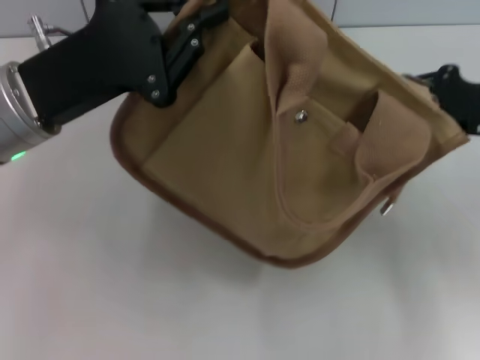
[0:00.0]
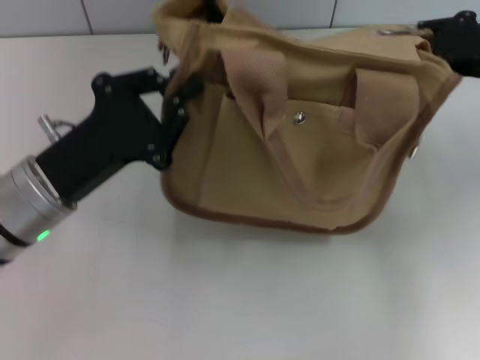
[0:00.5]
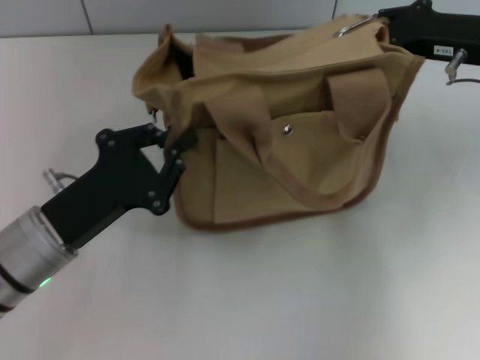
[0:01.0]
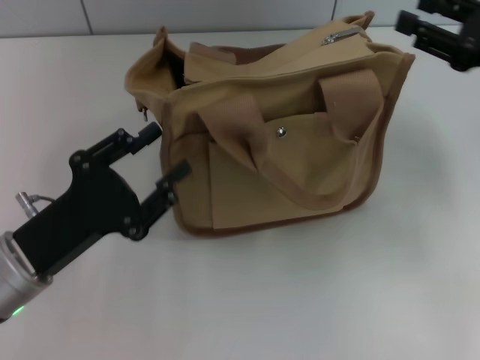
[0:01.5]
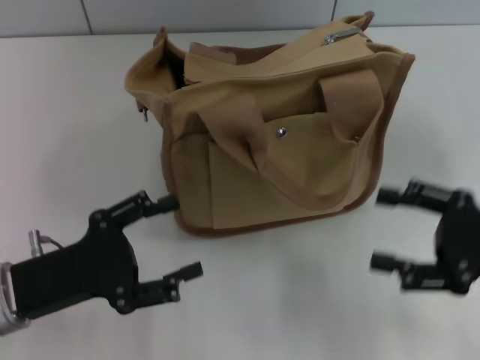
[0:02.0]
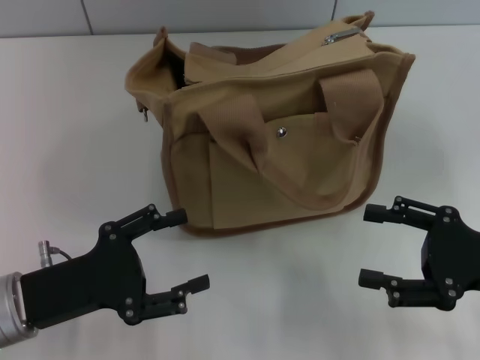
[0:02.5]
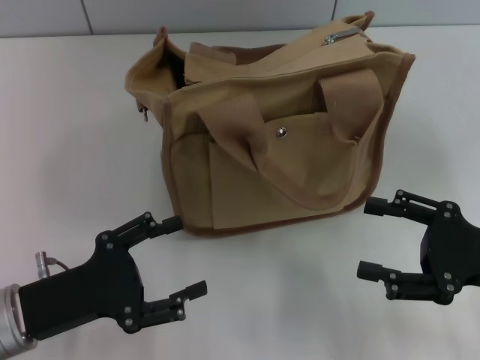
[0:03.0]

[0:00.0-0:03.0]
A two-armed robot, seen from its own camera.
0:00.0 to 0:01.5: The left gripper is displaced downward and backward by some 15 cm.
0:01.5 to 0:03.0: The right gripper shifts roughly 15 cm backward and downward, and opens up. Meanwhile the left gripper opens up.

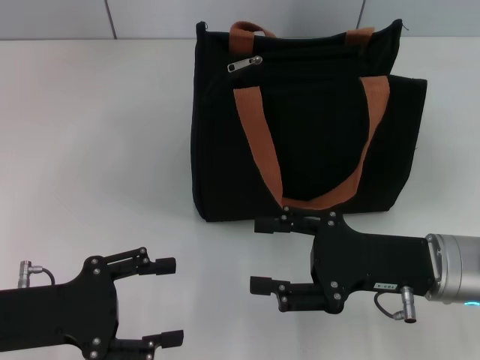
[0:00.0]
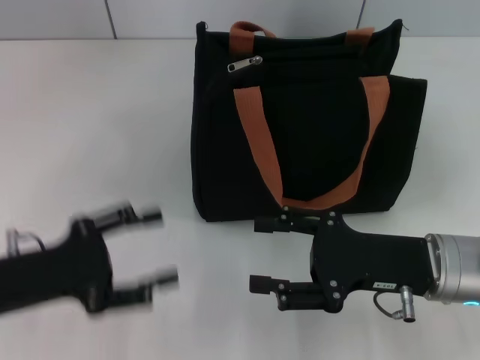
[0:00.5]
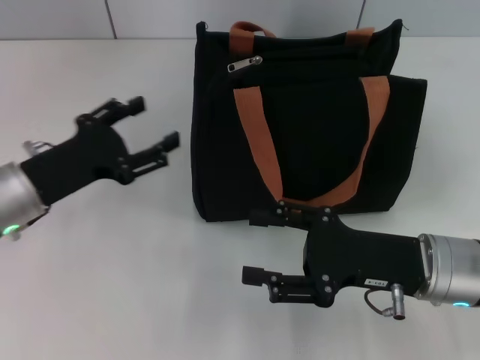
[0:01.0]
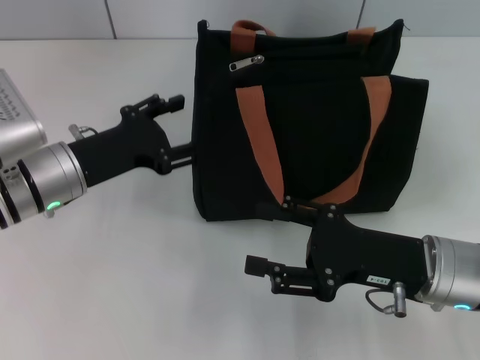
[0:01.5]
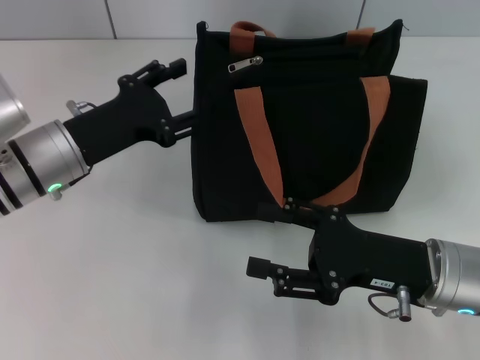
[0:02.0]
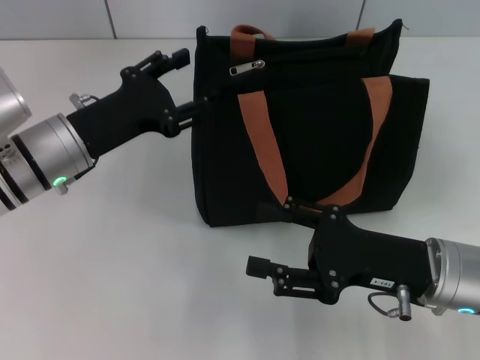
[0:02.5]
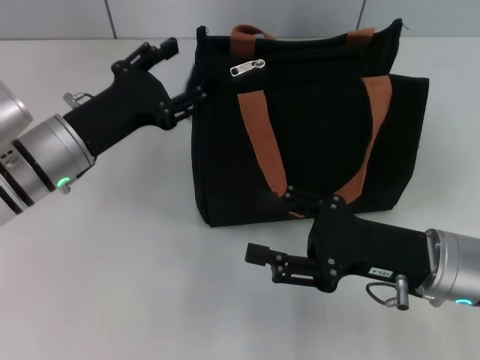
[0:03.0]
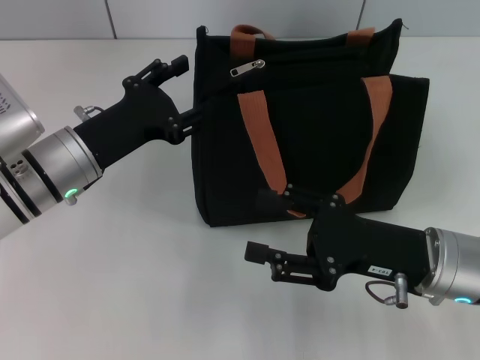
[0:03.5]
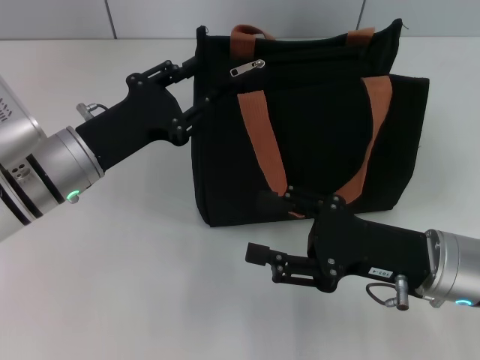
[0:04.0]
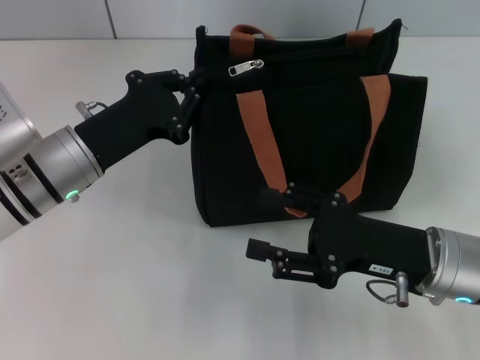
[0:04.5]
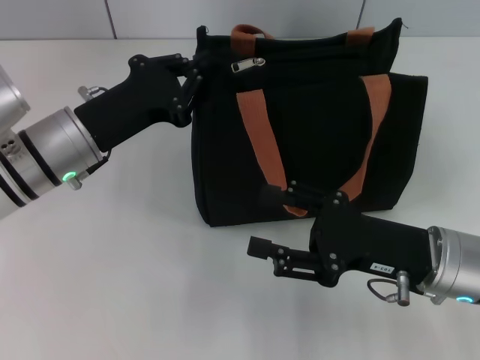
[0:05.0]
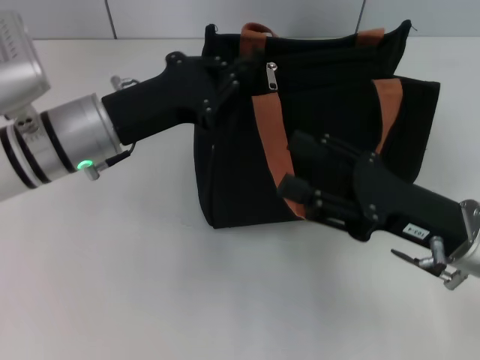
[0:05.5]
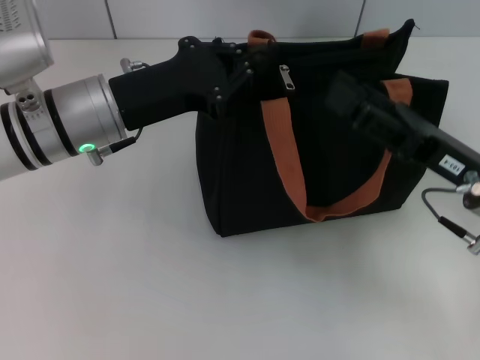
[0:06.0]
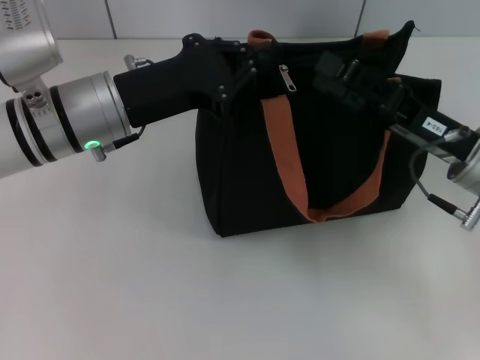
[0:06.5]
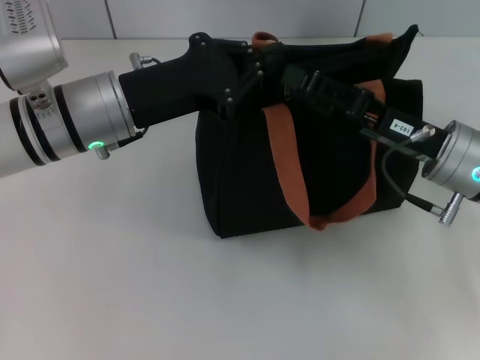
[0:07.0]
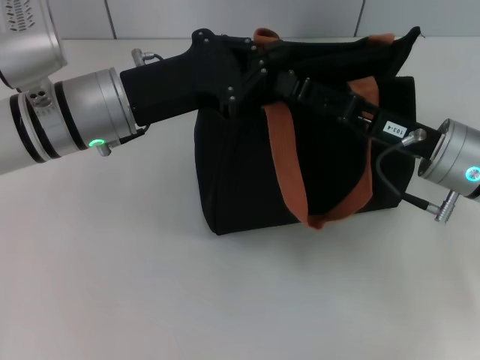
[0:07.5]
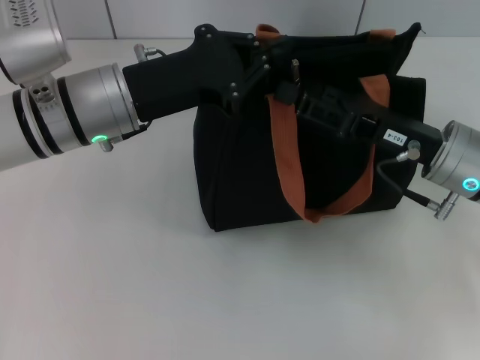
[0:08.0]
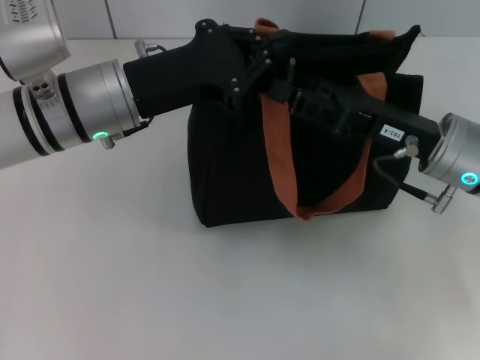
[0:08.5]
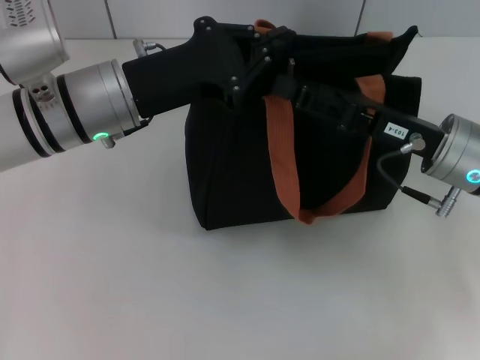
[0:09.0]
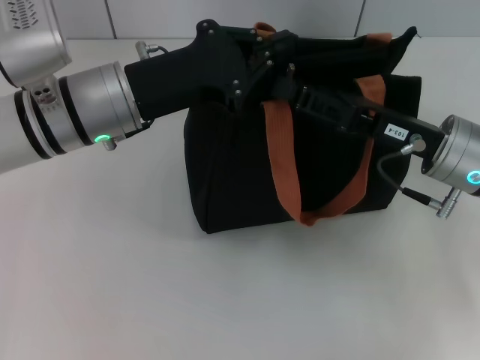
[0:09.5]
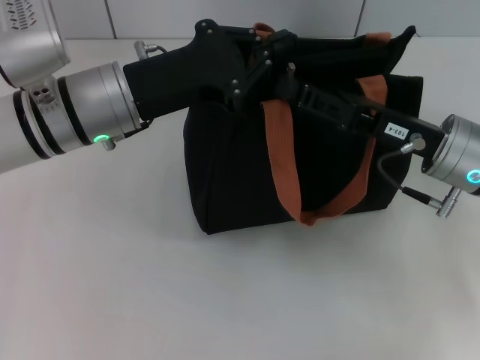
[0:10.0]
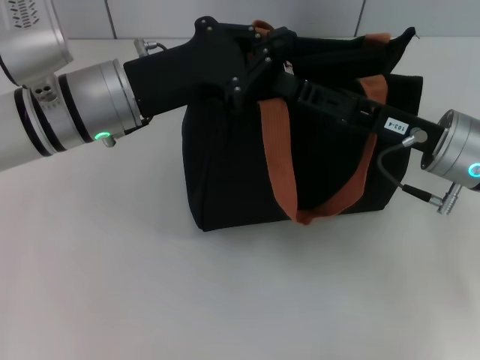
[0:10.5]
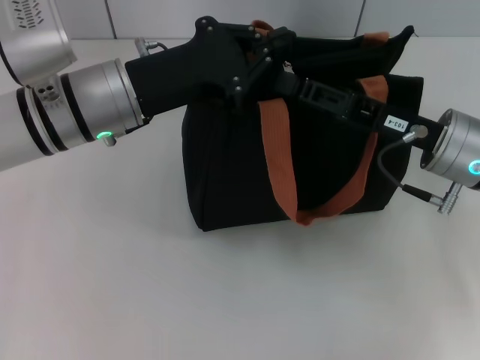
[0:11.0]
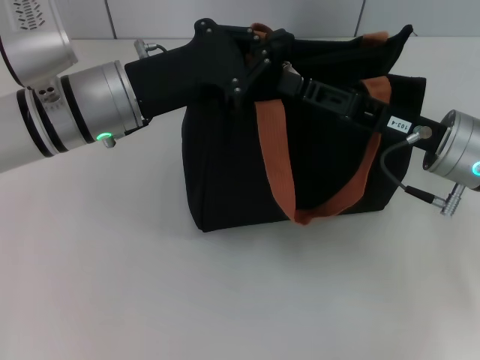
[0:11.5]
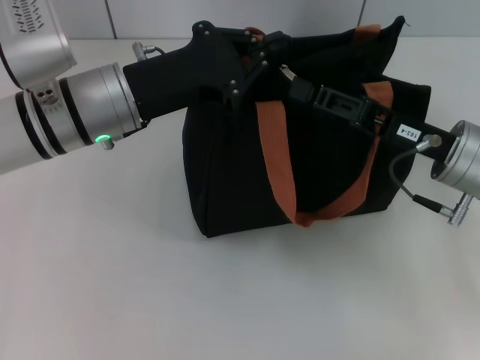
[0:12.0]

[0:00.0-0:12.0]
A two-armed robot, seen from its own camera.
0:00.0 to 0:02.0: The left gripper heads forward and to the right, covering roughly 15 cm.
0:02.0 to 0:04.0: The grippers make only small movements.
0:04.0 to 0:06.0: The left gripper moves upward, about 5 cm, and closes its fingers. The right gripper changes place by some 5 cm.
0:08.0 to 0:10.0: The grippers move only a little.
0:10.0 to 0:12.0: The right gripper closes.

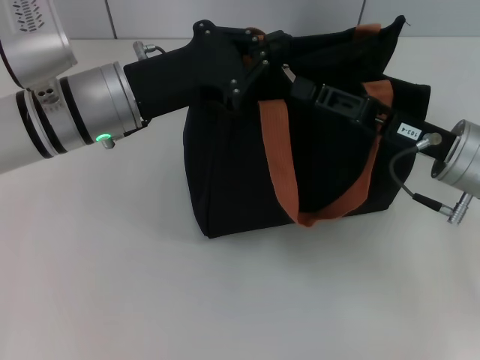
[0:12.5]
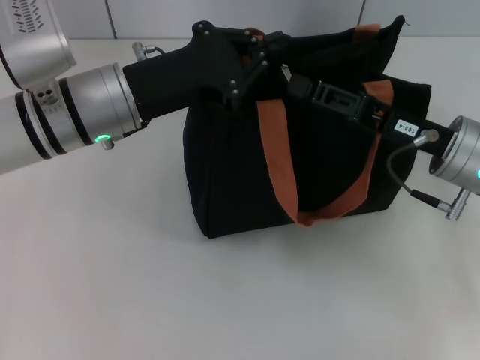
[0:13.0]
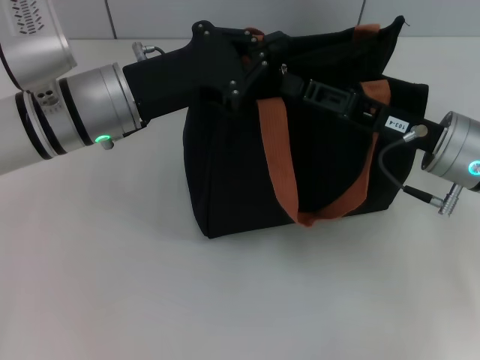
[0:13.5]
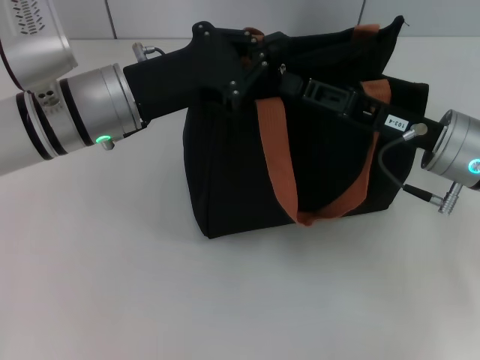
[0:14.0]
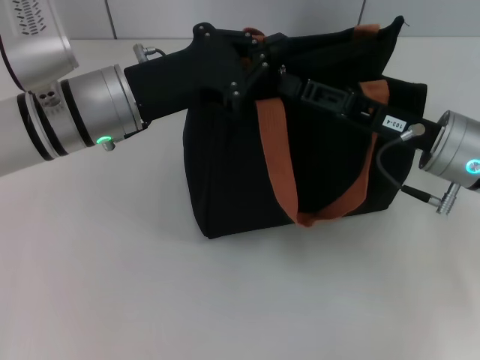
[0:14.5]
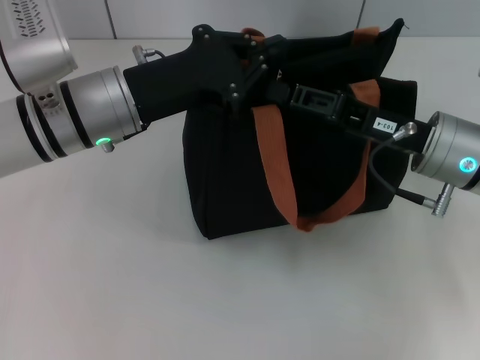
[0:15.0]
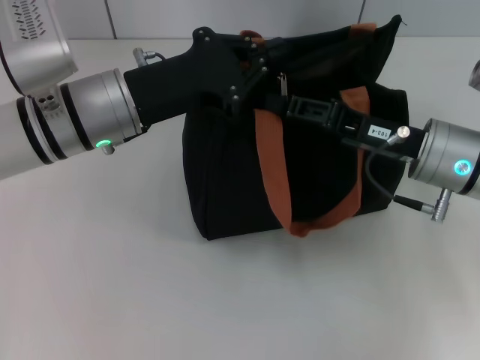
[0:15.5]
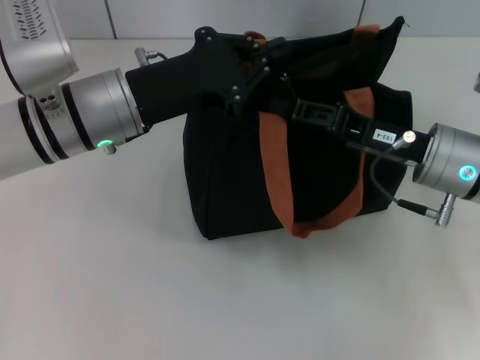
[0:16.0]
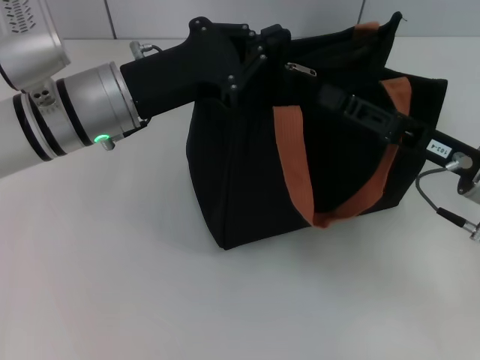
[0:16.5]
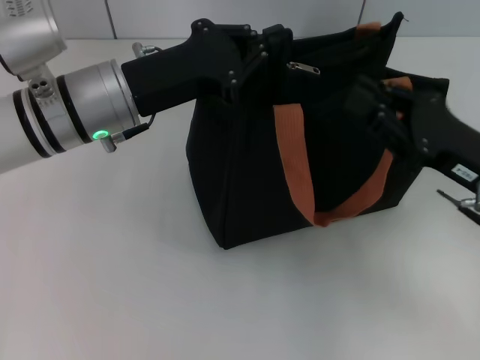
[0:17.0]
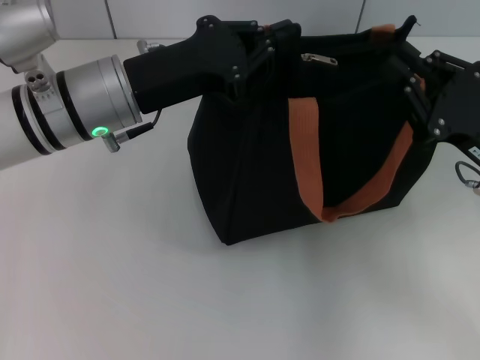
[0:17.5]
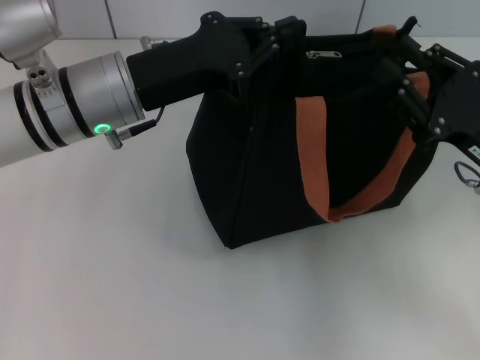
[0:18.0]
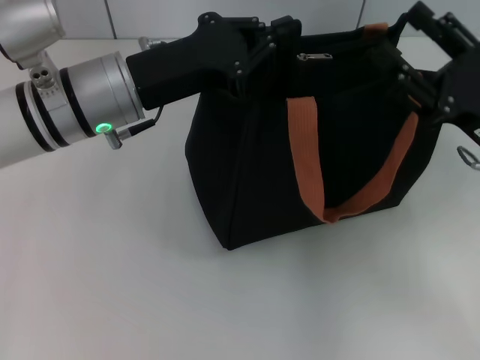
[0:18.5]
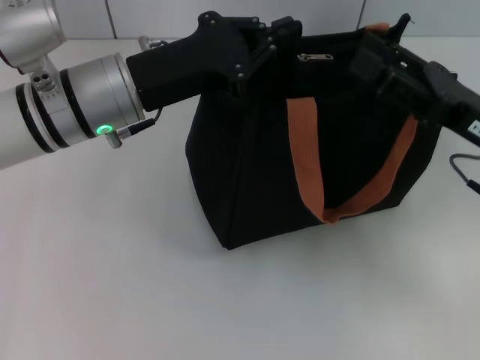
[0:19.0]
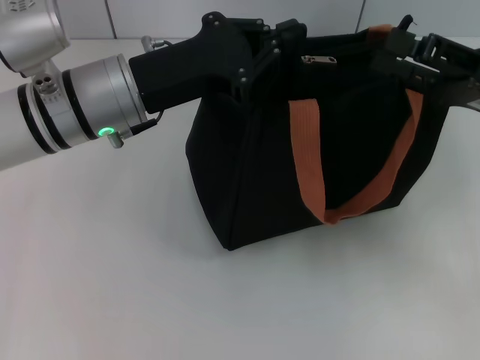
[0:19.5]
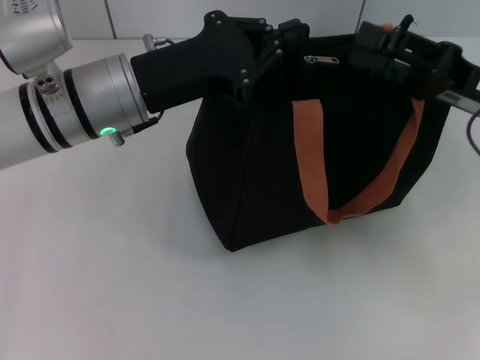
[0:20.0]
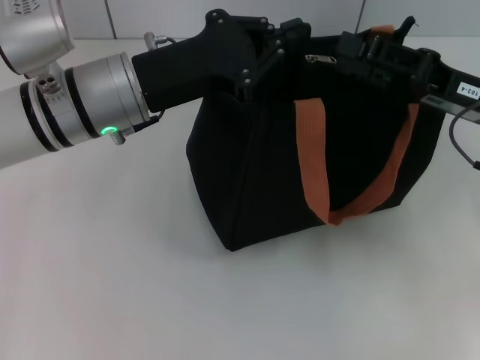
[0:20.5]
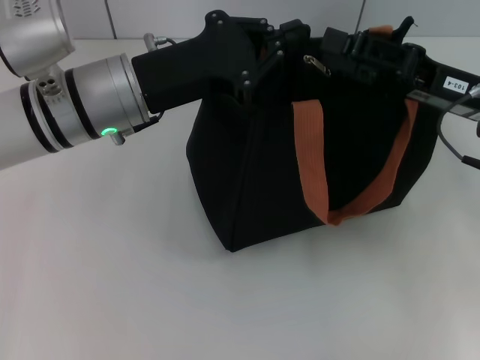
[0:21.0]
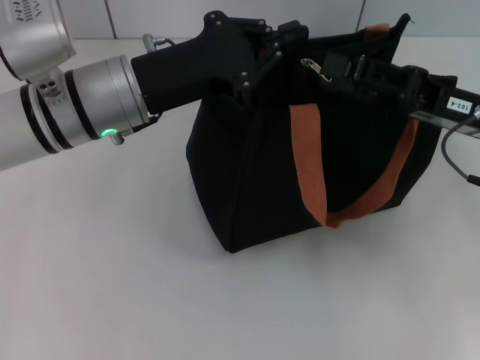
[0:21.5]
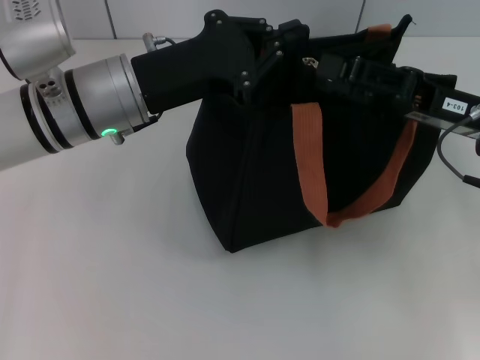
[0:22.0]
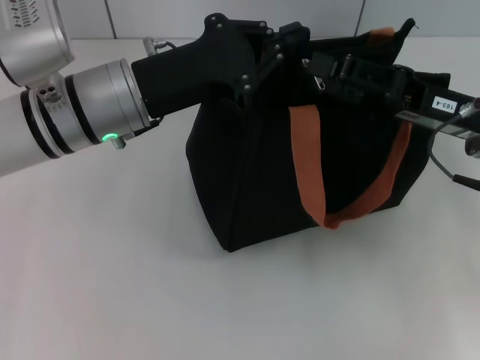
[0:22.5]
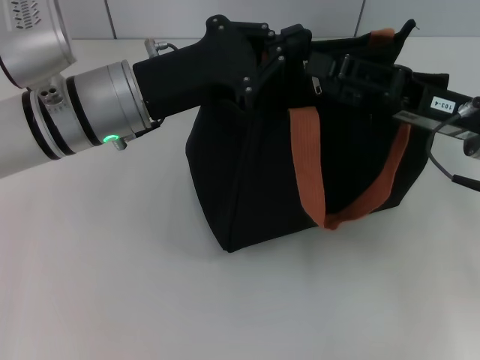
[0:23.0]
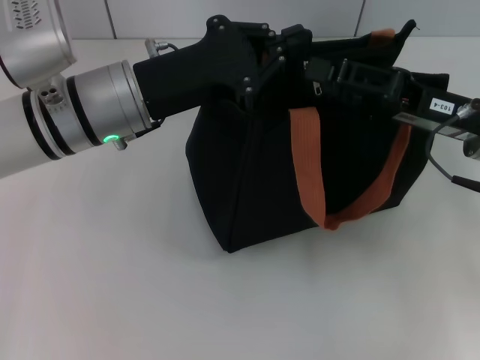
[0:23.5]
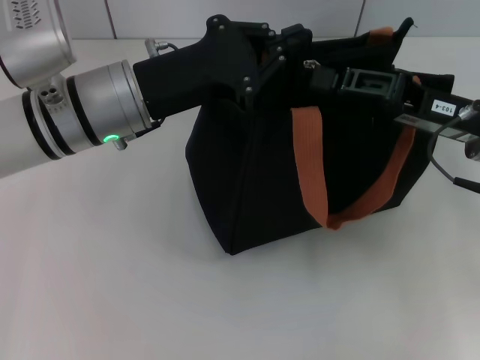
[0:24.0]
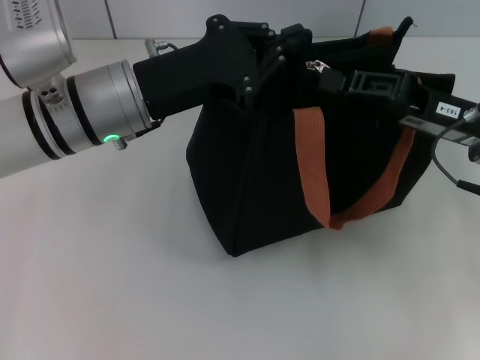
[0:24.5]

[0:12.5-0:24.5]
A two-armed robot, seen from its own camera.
0:12.5 to 0:14.5: Neither gripper changes place.
0:14.5 to 0:16.5: The grippers move only a little.
0:16.5 to 0:18.5: The right gripper opens up.
0:18.5 to 0:20.5: The right gripper changes place by about 5 cm.
0:20.5 to 0:22.5: There are only small adjustments of the grippers.
0:22.5 to 0:24.5: The right gripper closes its fingers.
